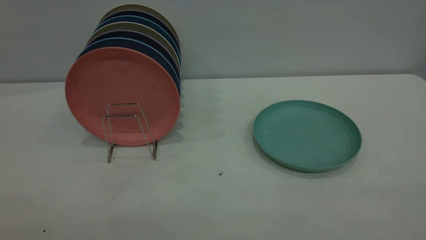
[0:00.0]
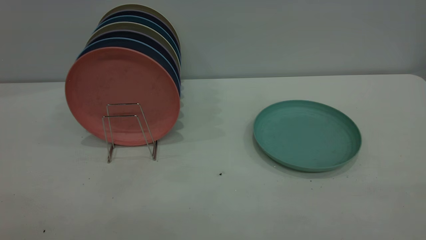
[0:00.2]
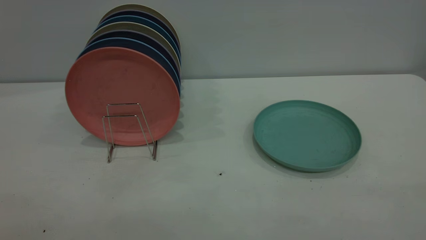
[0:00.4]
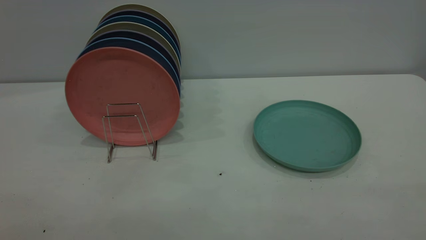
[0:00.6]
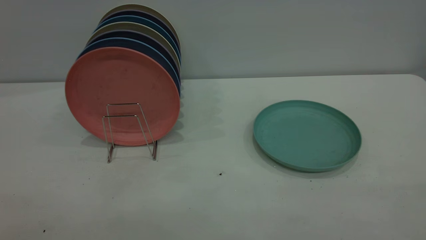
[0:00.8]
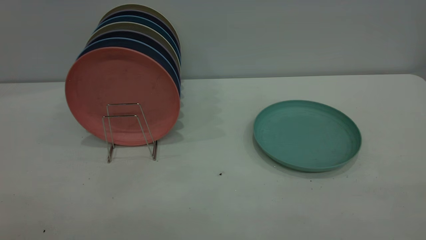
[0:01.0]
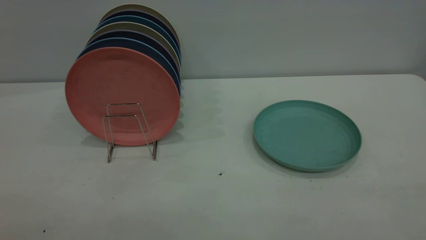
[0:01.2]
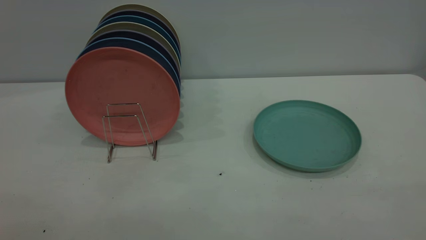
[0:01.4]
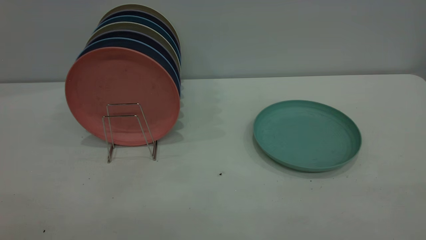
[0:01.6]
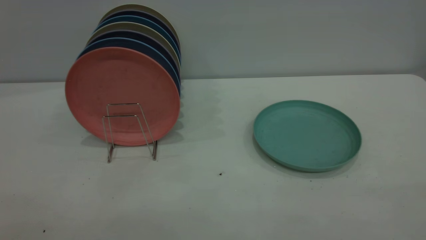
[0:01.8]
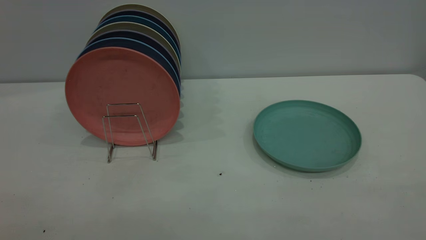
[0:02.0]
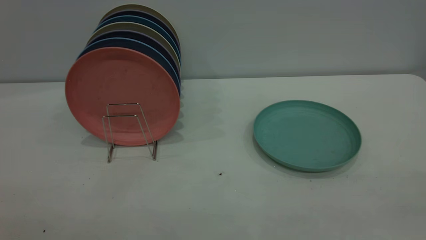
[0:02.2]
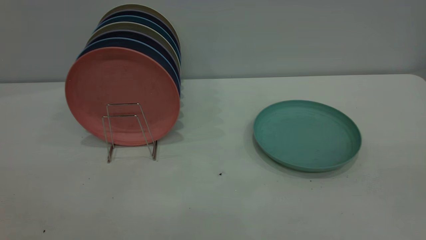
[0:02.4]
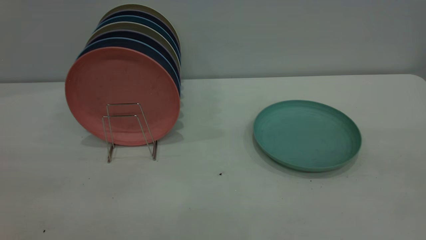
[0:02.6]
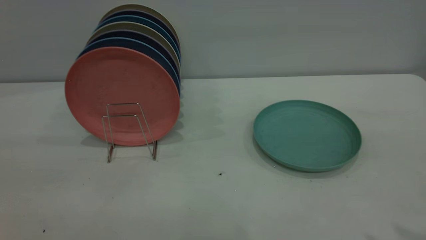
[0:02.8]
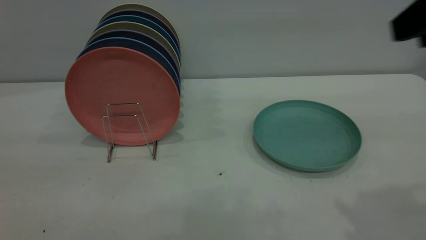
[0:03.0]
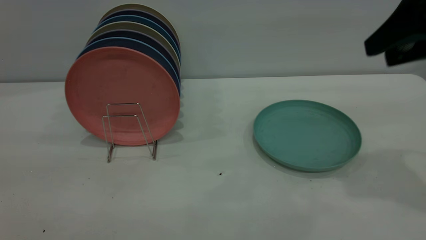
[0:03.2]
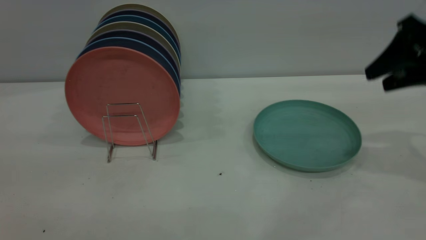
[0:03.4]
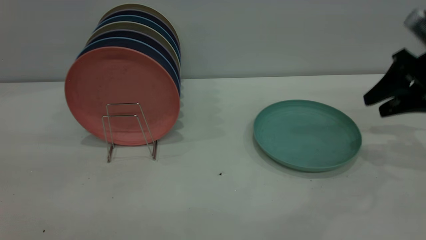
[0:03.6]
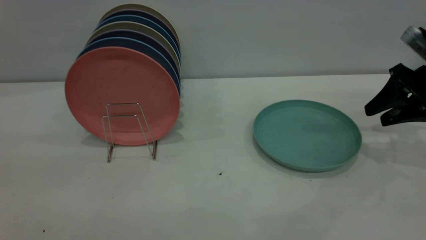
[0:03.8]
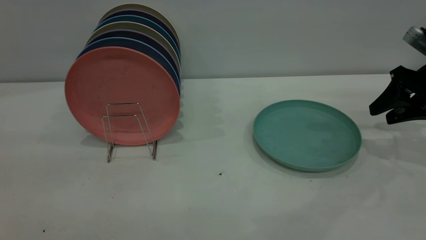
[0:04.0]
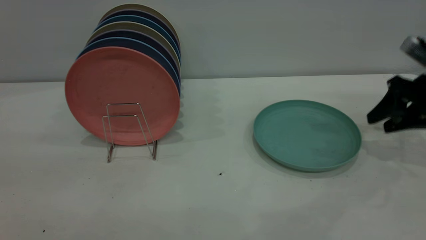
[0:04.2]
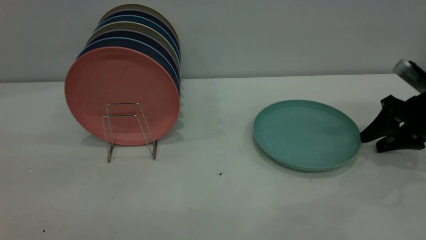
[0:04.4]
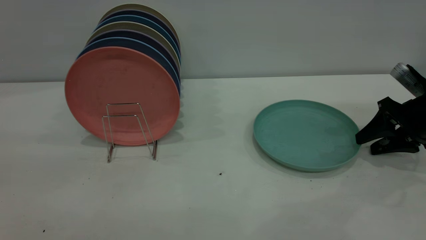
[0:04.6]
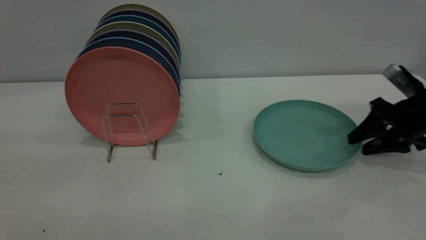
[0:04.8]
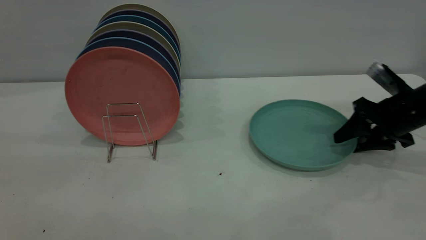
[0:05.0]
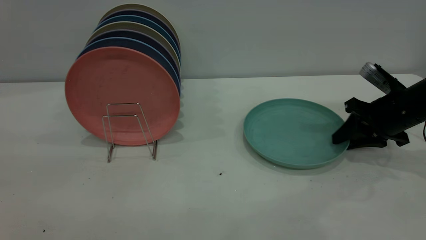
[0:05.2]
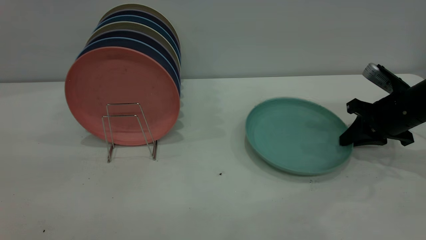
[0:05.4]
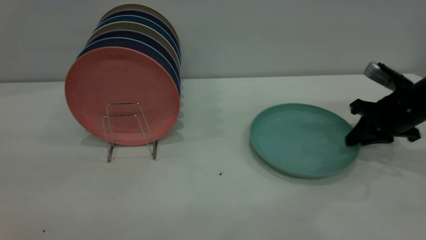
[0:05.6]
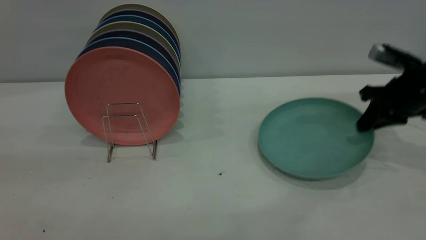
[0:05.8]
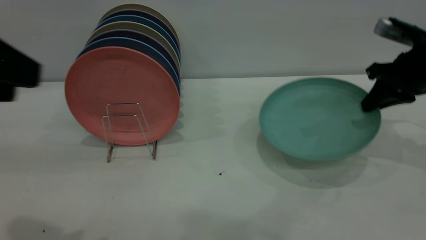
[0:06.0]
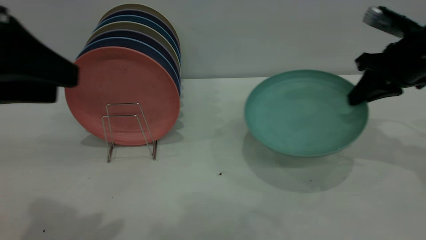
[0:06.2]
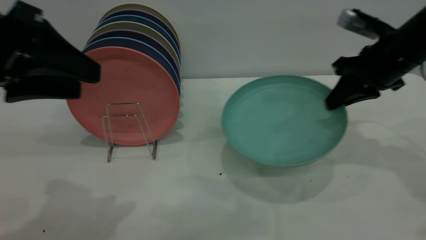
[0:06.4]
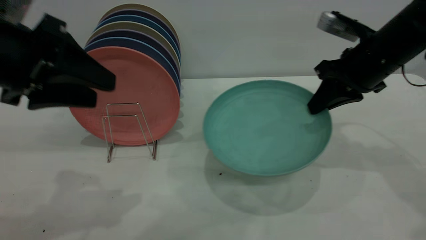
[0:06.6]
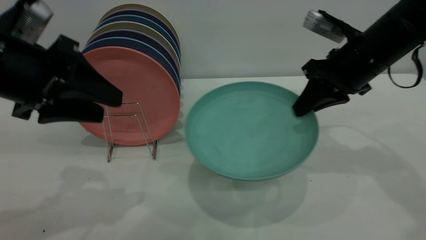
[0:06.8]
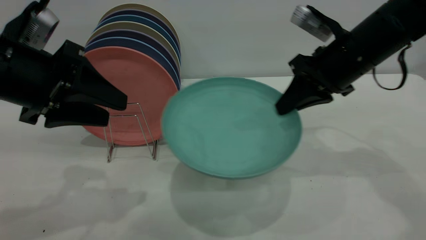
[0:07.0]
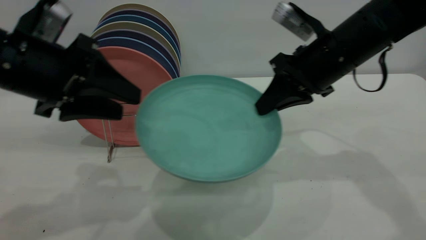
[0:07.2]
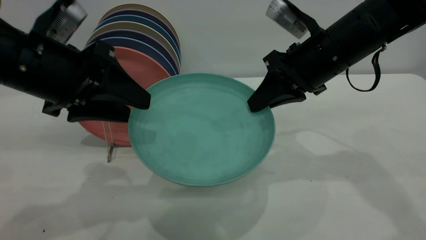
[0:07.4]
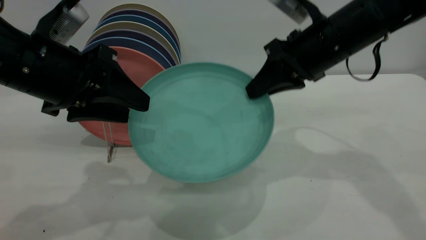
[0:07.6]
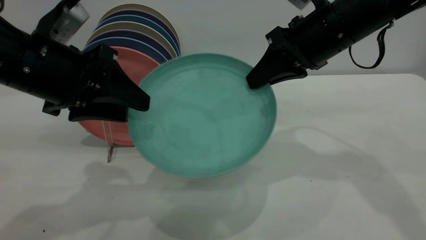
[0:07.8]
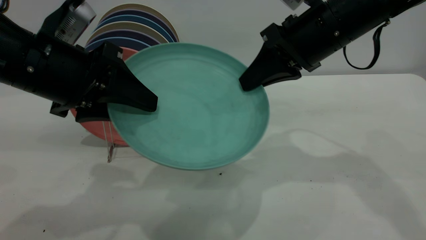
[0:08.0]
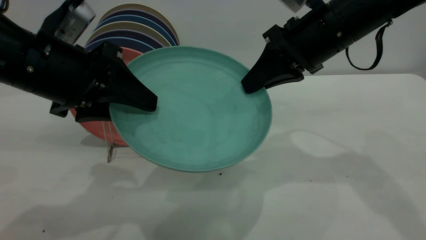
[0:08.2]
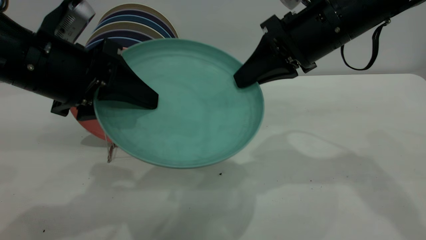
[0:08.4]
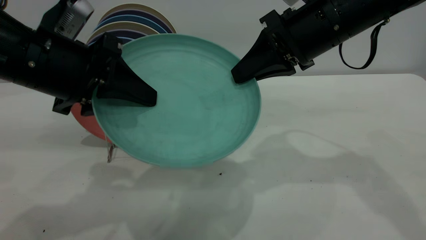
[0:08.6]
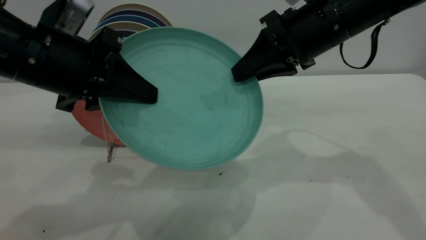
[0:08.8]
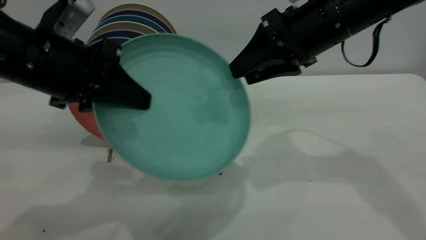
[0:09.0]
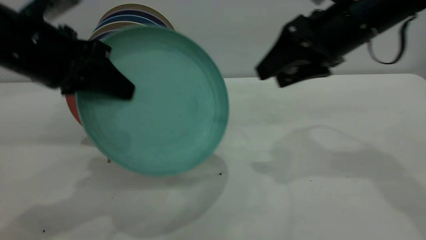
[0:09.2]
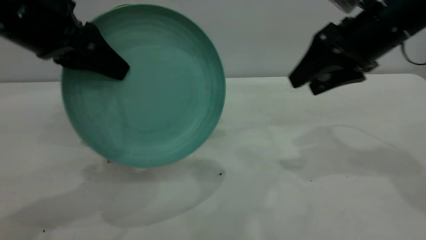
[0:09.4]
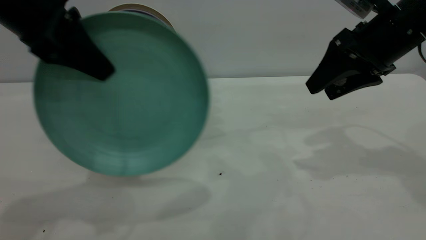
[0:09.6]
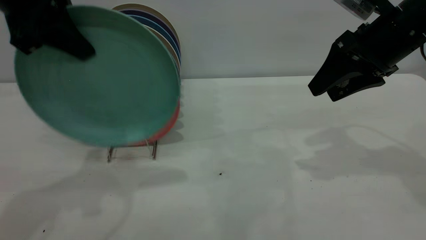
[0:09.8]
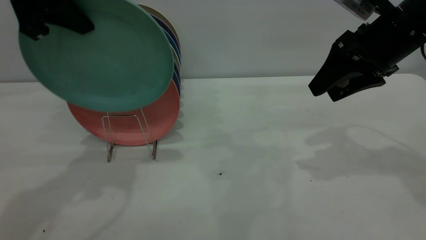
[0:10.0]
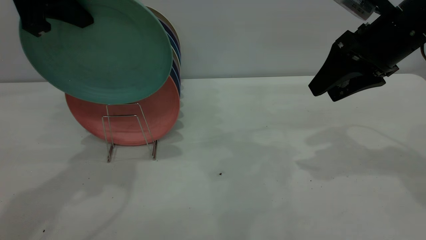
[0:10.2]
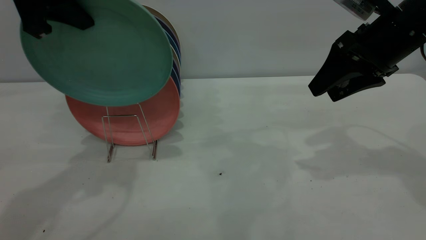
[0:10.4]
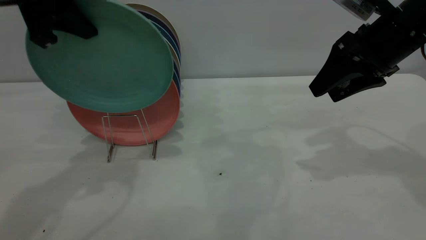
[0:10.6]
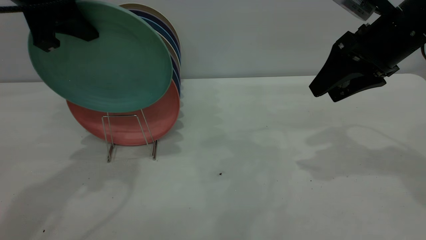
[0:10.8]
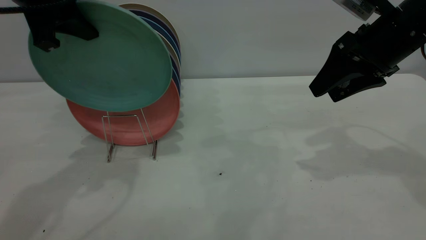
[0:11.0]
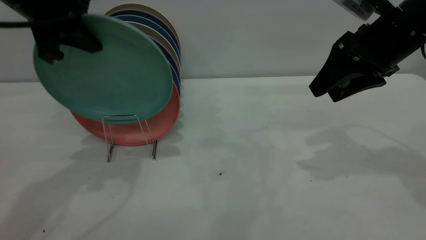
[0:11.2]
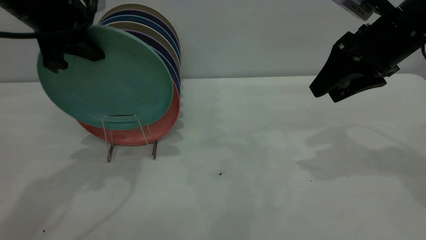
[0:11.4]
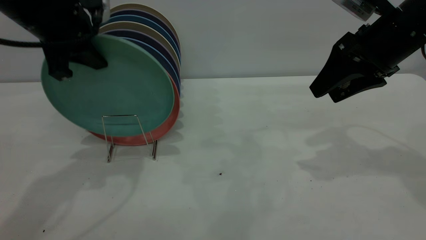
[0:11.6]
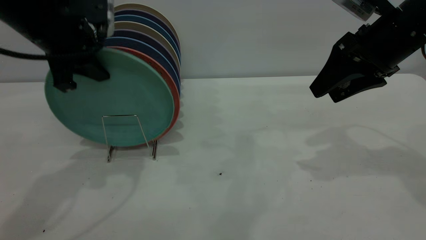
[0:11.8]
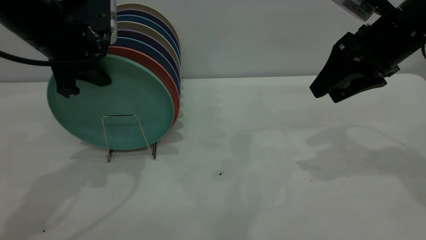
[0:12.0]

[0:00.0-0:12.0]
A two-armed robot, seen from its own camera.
Task of the whole recording: the right gripper grasp the green plate, the right gripper pass the green plate to the left gripper, and the left gripper place the green plate on the plate rack.
Step, 0:00.0 to 0:05.8: Pick up the plate with the right gripper.
Step, 0:06.2 to 0:09.0: Pass the plate from the right gripper to the left gripper.
0:00.0 to 0:01.6: Both grippers stay about where they are.
0:01.6 to 0:03.0: The right gripper moves forward, roughly 25 cm.
0:03.0 to 0:04.4: The right gripper goes roughly 30 cm downward and forward.
0:04.4 to 0:06.0: The right gripper goes approximately 10 cm upward, and closes up, while the left gripper moves forward and downward, approximately 10 cm.
0:06.0 to 0:07.6: The right gripper heads to the left, covering some 15 cm, while the left gripper shifts roughly 15 cm forward and downward.
0:07.6 to 0:09.0: The left gripper closes its fingers. Meanwhile the right gripper opens up.
0:09.0 to 0:10.4: The left gripper travels upward and forward by approximately 10 cm. The right gripper moves to the right, some 10 cm.
0:10.4 to 0:12.0: The left gripper goes roughly 10 cm downward.

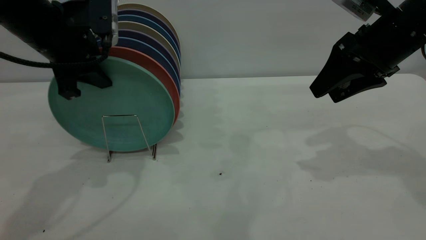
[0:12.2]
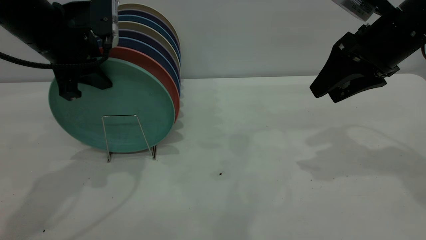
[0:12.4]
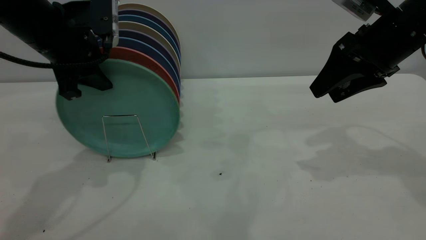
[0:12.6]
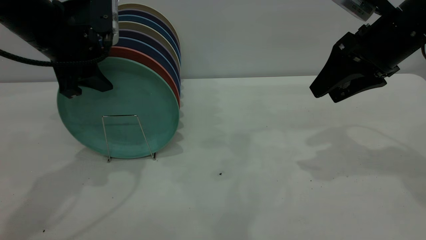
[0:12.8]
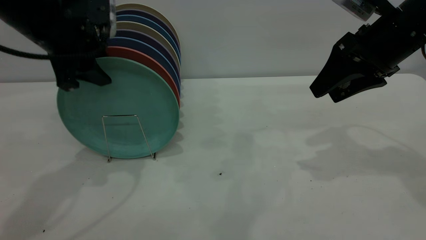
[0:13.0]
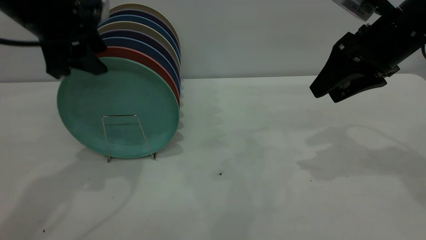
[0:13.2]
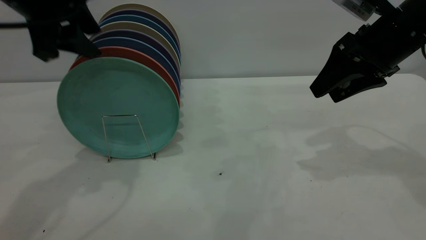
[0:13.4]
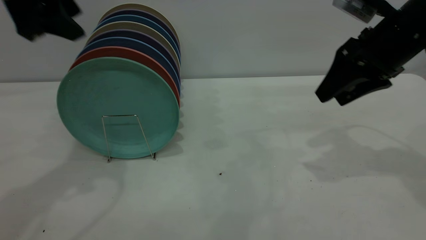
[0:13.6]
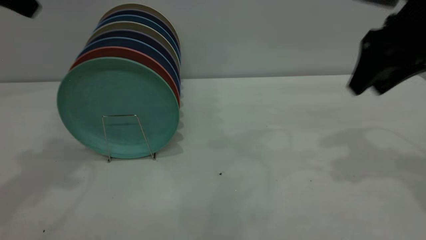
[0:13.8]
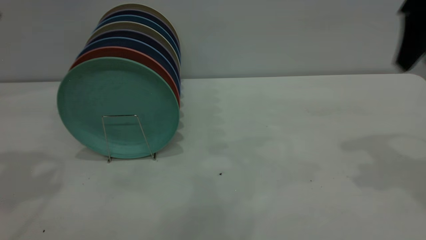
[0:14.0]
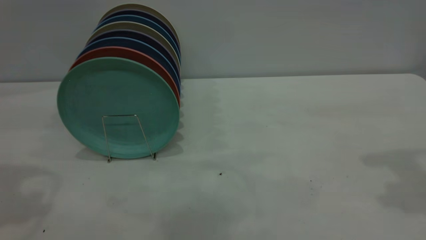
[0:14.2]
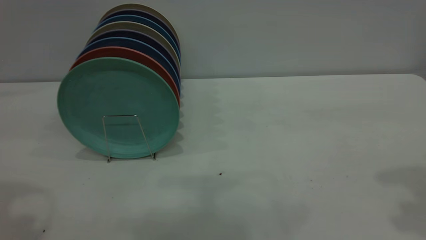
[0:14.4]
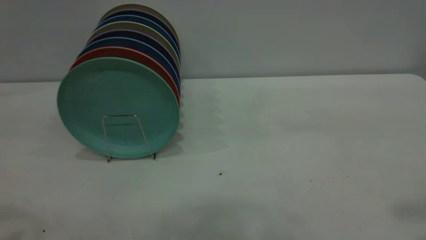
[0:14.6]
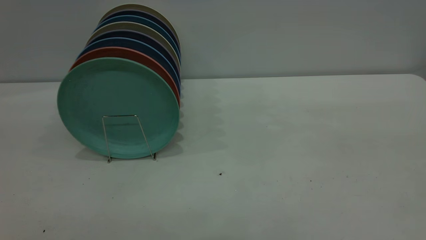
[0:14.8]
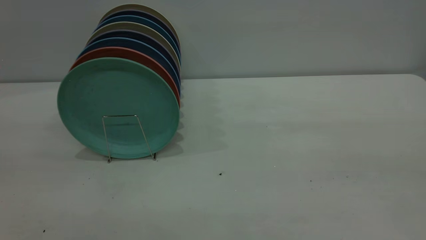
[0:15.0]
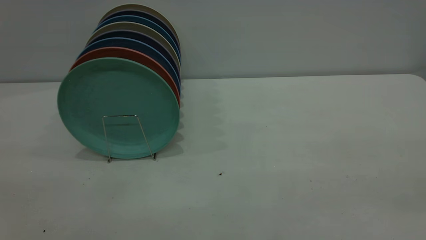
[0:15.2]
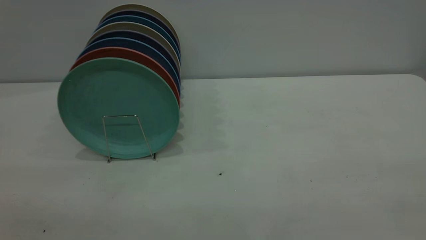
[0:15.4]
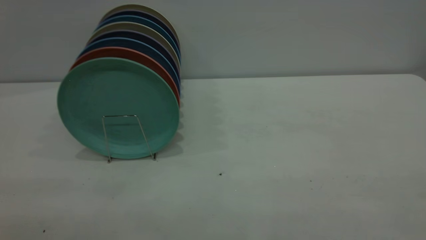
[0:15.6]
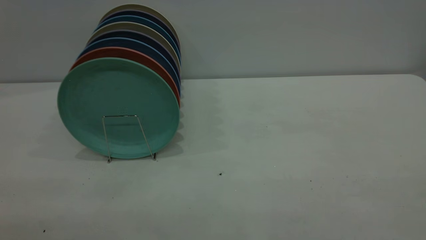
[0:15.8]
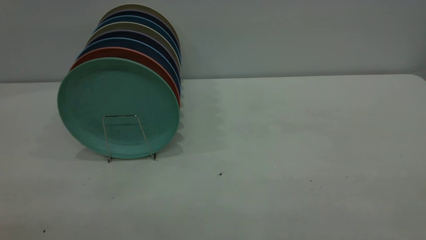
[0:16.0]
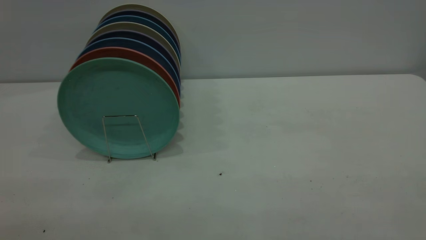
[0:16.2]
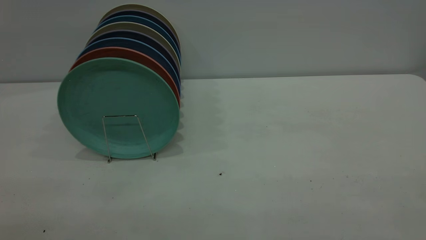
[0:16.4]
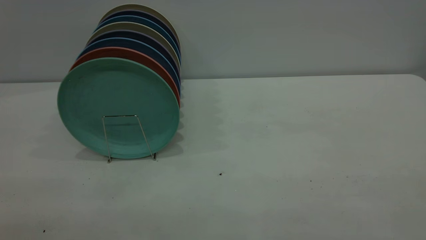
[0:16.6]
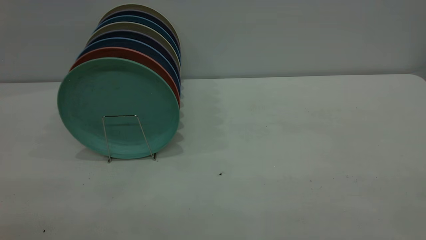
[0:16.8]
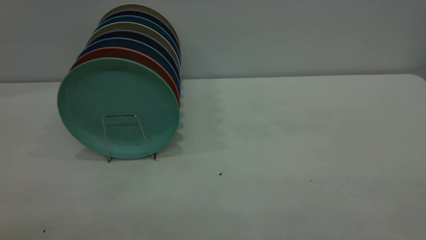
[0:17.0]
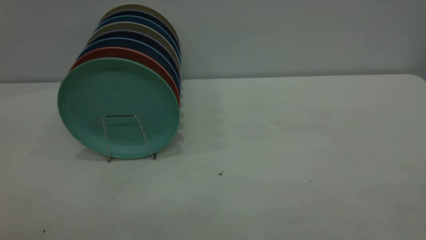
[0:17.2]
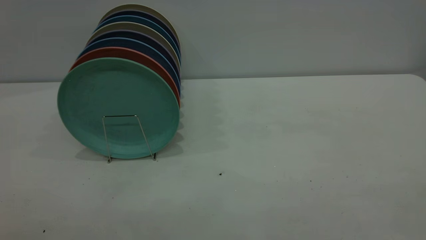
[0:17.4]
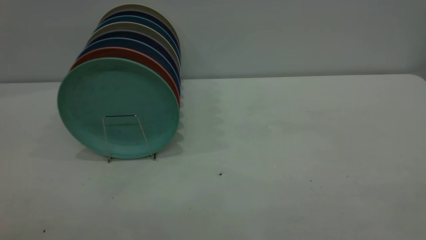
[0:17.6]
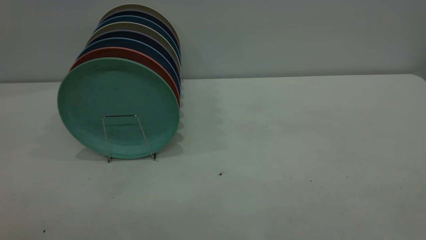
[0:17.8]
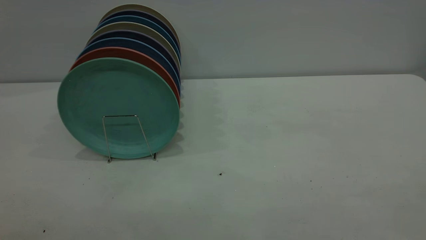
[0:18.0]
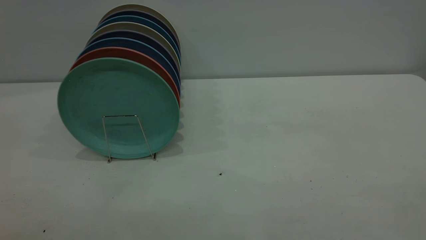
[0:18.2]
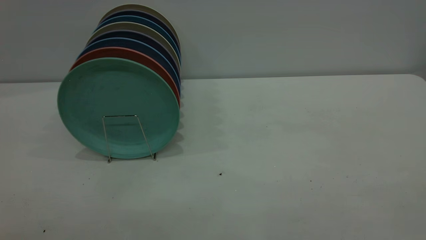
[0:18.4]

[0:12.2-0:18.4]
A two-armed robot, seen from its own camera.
Task of the whole recording: the right gripper grasp the green plate, the right gripper pass the green plate to the left gripper, and the left gripper place the green plate on the plate rack.
0:12.2 to 0:13.8: The left gripper is displaced upward and to the left by roughly 15 cm, and opens its fingers.
0:13.8 to 0:15.4: The right gripper moves backward, approximately 35 cm.
